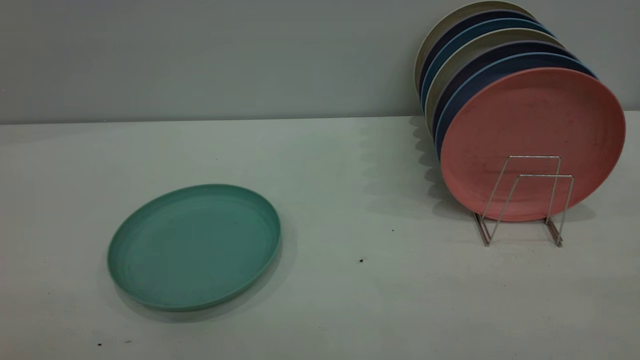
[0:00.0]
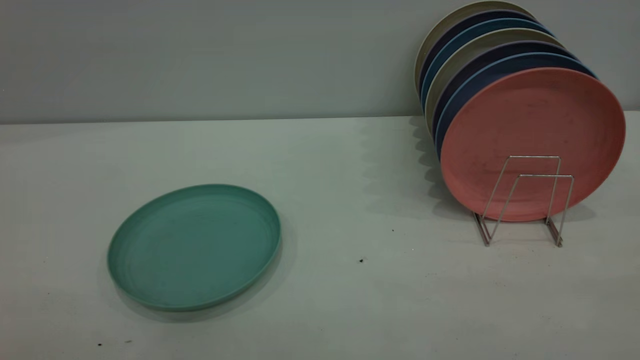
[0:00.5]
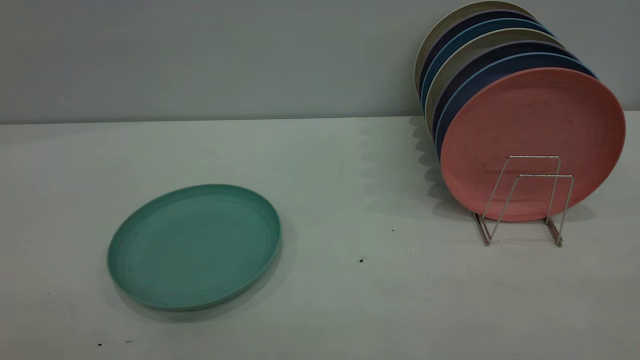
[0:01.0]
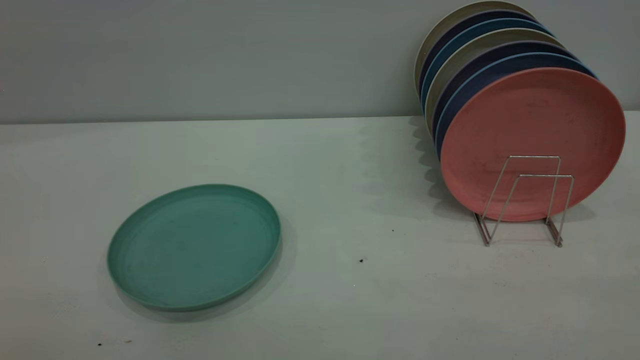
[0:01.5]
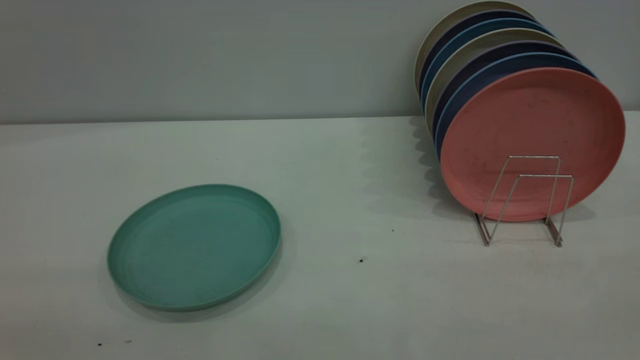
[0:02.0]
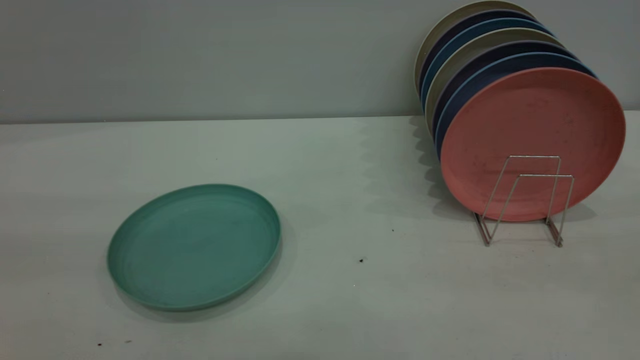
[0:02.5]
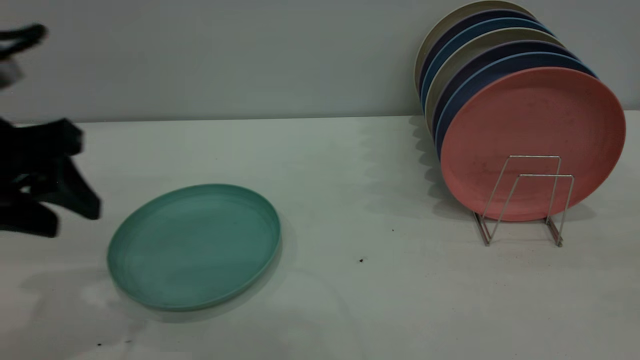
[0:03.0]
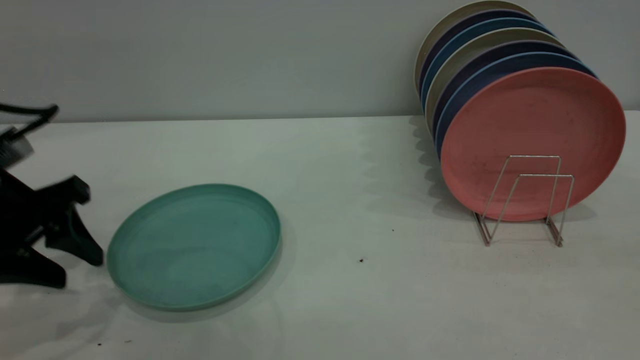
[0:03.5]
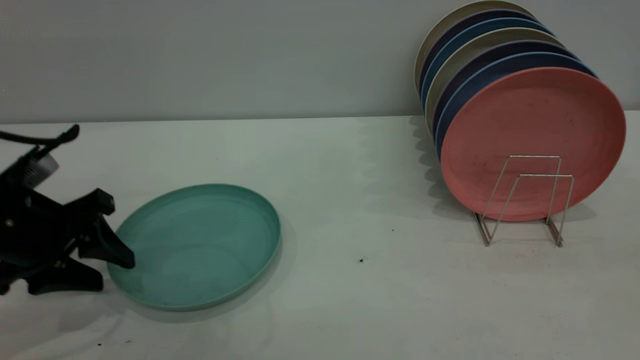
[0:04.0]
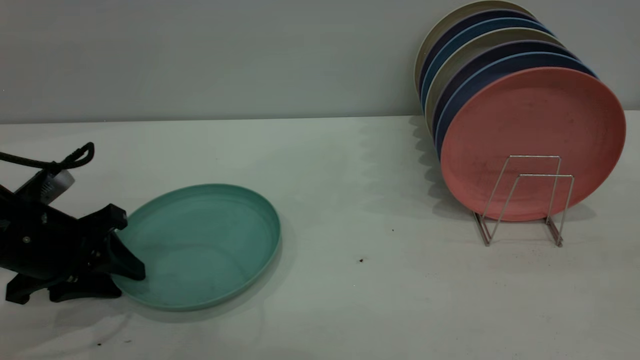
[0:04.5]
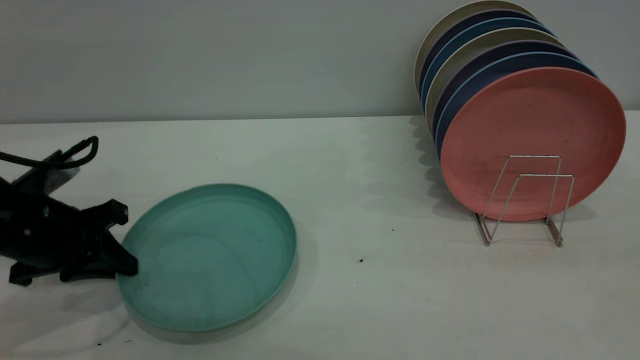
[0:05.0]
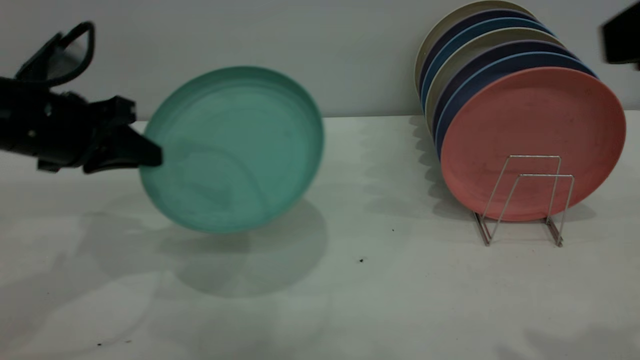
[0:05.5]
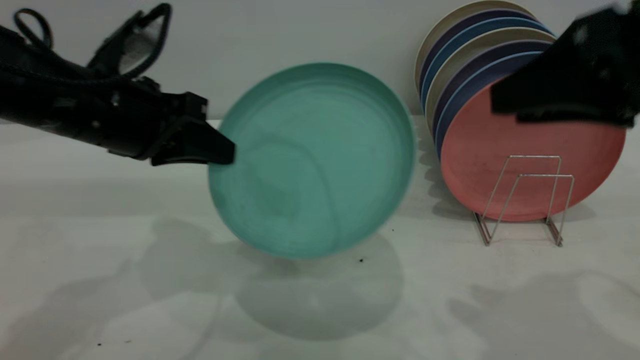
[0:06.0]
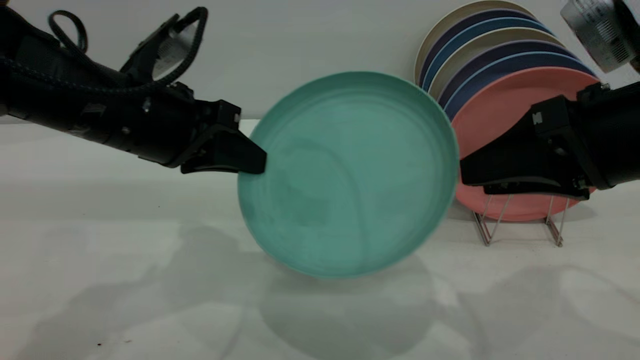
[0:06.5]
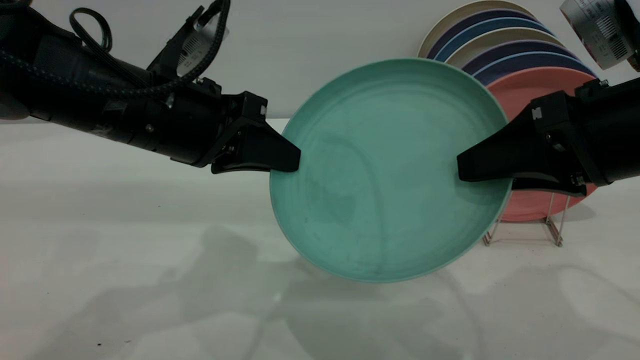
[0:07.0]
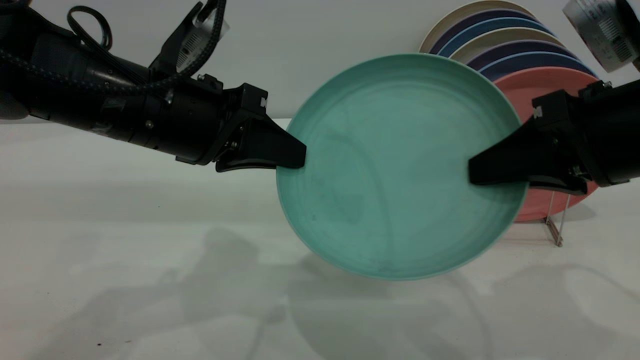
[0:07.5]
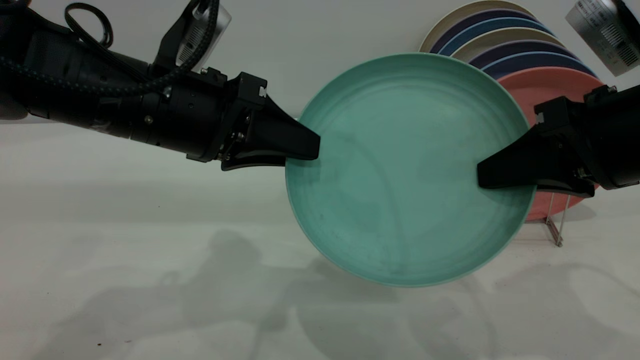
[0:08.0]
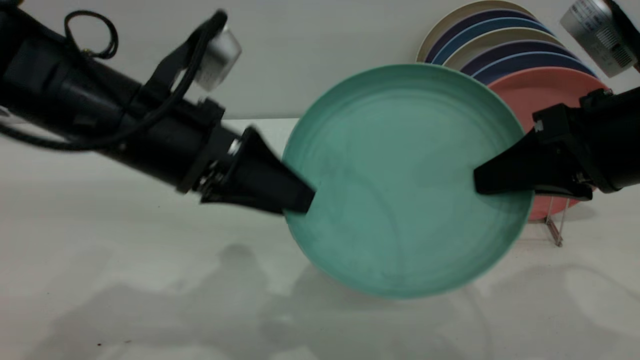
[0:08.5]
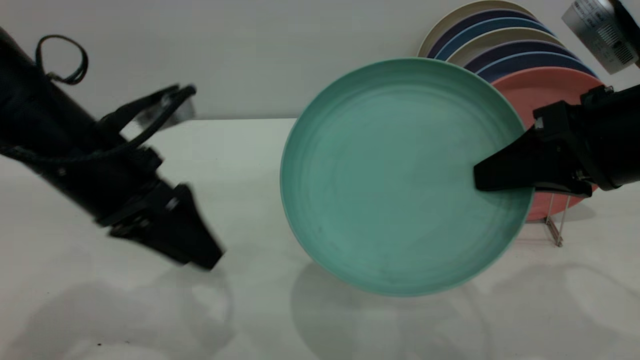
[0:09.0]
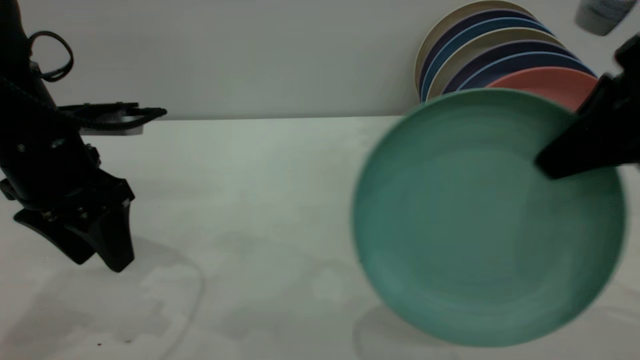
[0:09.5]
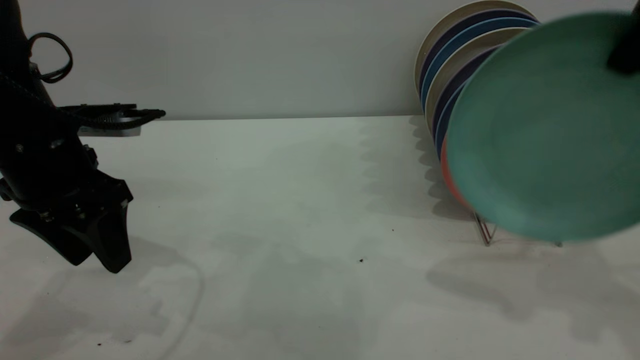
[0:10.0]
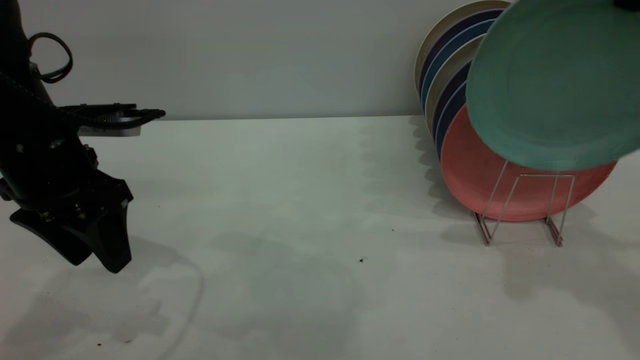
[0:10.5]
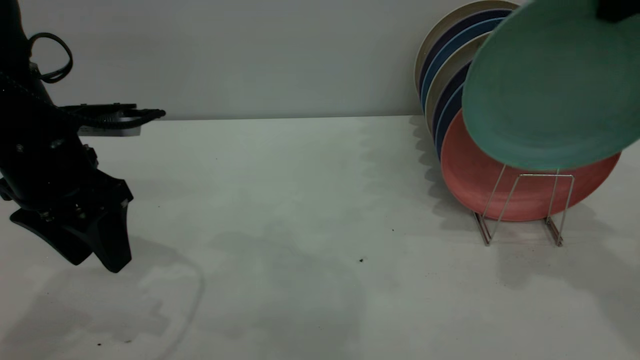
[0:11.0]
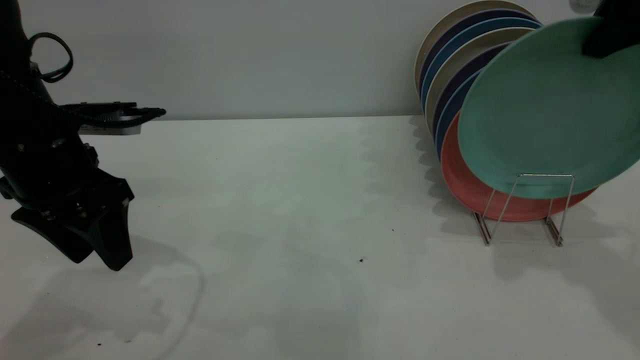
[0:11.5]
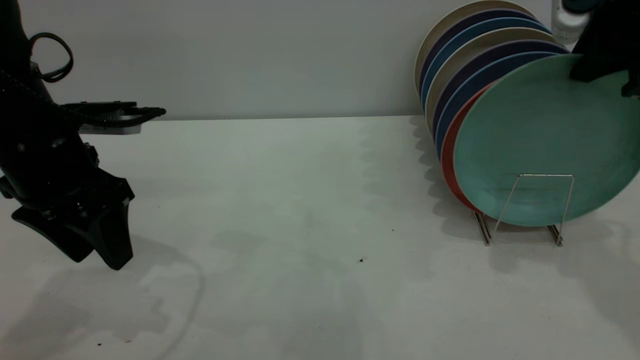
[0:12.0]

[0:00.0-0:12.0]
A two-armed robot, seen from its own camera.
Task of the whole recording: the left gripper grasp the green plate, the left gripper pass the green plate to the right gripper, and the right gripper place the green plate on the plate rack.
Step, 0:00.0 to 0:05.0: Pick up the plate with the left gripper.
Step, 0:05.5 to 0:08.5: Pass the plate from the left gripper to the right gripper.
0:02.0 to 0:04.0: The left gripper is displaced forward and downward by about 40 cm.
0:04.0 to 0:06.0: The right gripper is displaced forward and downward by roughly 15 cm, while the left gripper is displaced to the right and upward by roughly 15 cm, and closes up.
0:06.0 to 0:08.0: The right gripper is displaced downward by approximately 5 cm, and closes its fingers. The left gripper is displaced to the right by roughly 5 cm, and opens its fingers.
0:08.0 to 0:10.0: The right gripper travels upward by some 15 cm, while the left gripper goes some 10 cm to the left, and opens.
0:10.0 to 0:12.0: The right gripper travels forward and downward by approximately 10 cm.

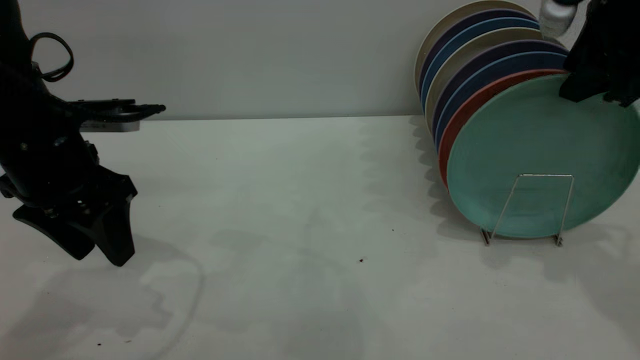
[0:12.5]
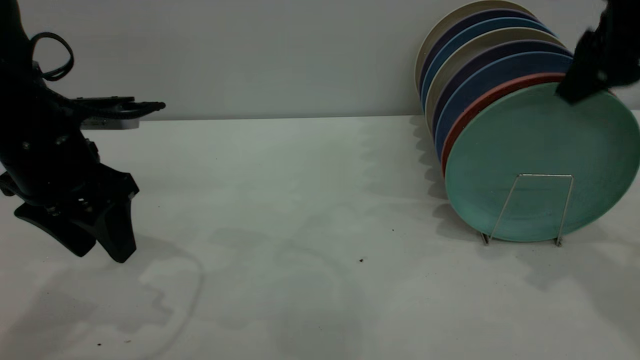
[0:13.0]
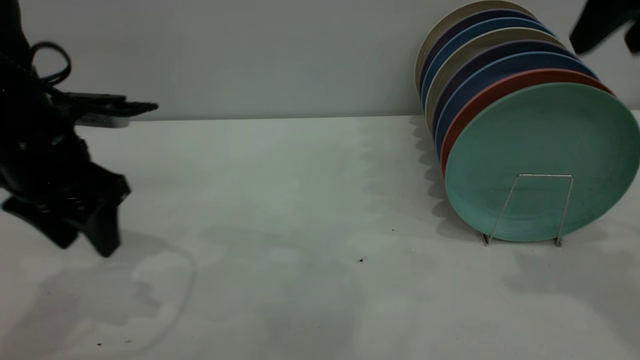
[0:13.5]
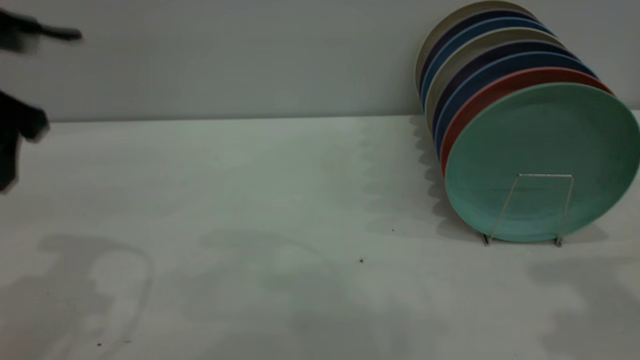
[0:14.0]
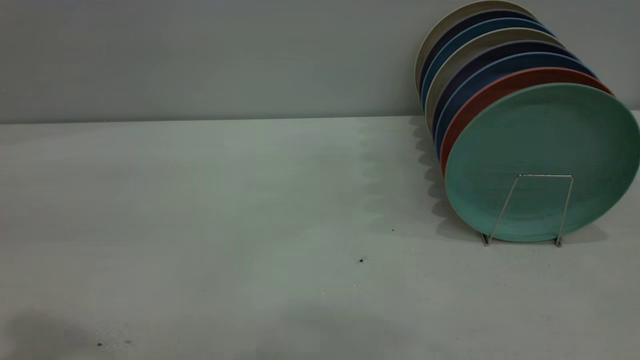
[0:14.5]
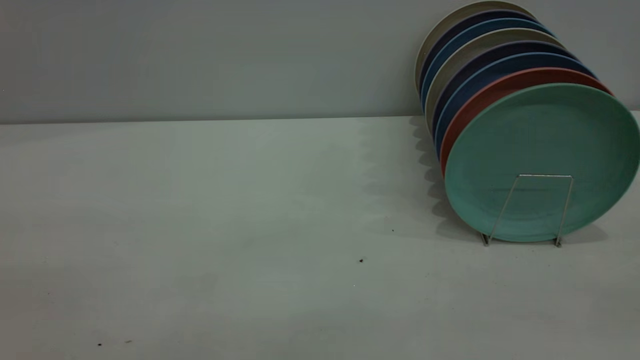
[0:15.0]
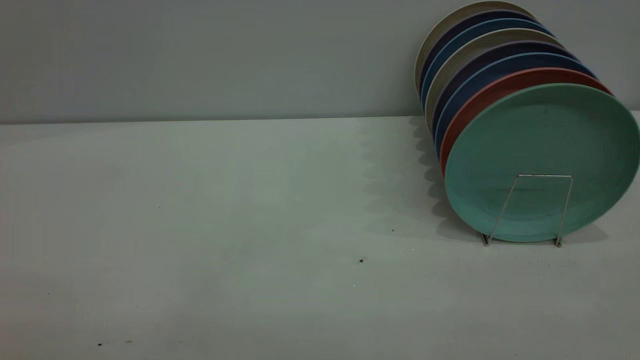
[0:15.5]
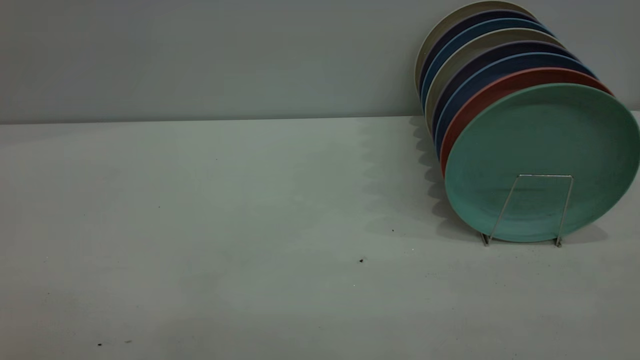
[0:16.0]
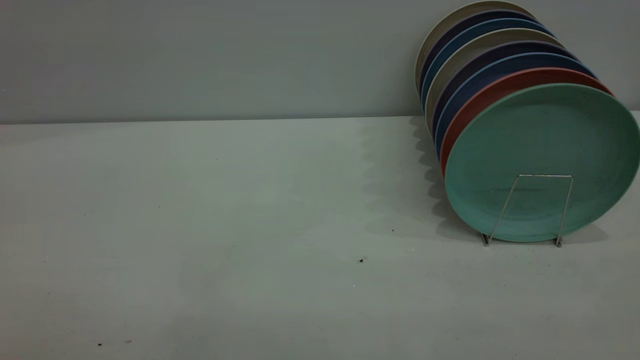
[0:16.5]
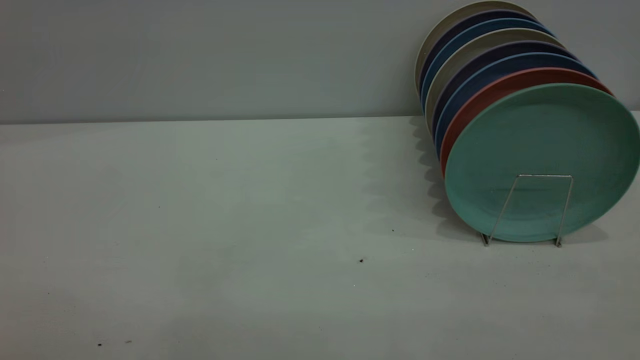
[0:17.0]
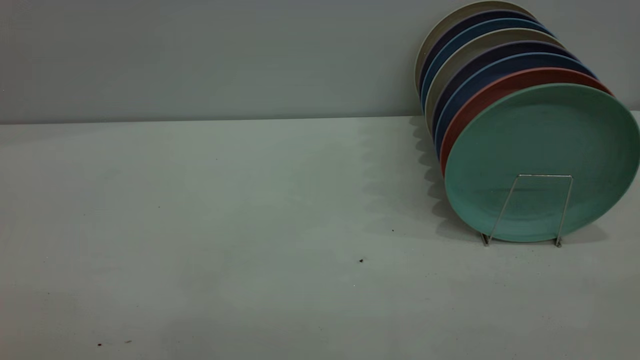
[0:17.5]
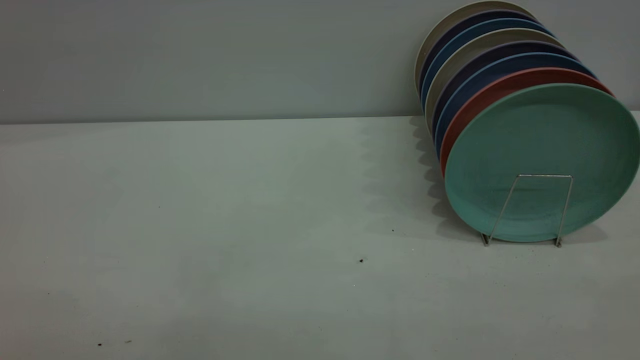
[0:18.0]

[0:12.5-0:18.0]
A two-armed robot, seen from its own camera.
Task of the whole recording: the left gripper grasp the green plate, the left gripper pass the green plate to the right gripper, and the right gripper place the green plate on the plate rack.
0:12.5 to 0:14.5: The left gripper heads upward and backward, covering approximately 25 cm, while the right gripper shifts approximately 30 cm backward and upward, and opens its fingers.
